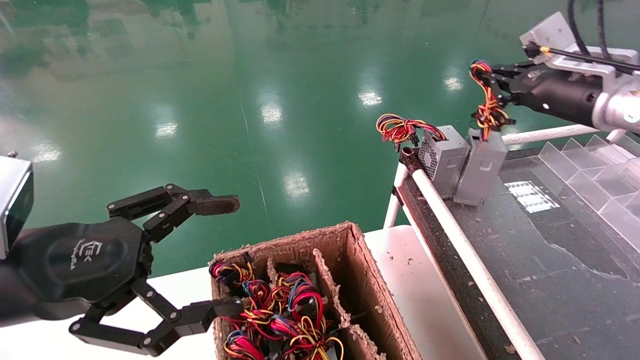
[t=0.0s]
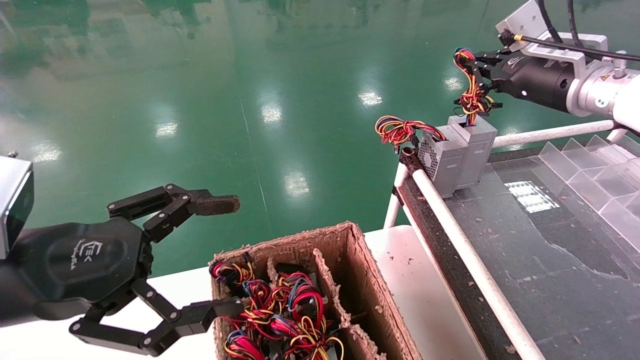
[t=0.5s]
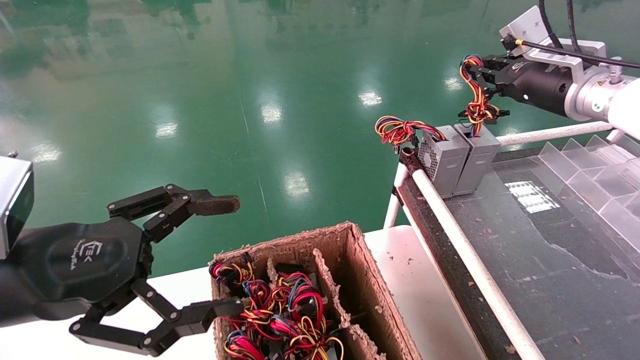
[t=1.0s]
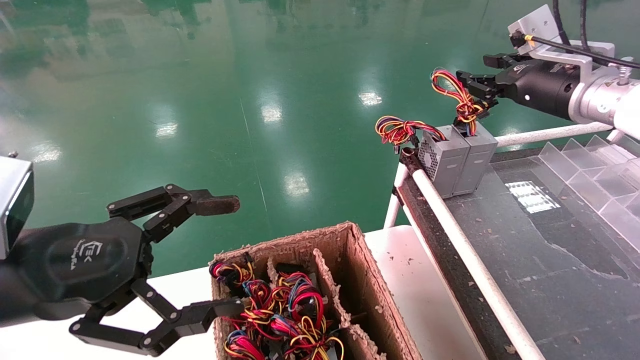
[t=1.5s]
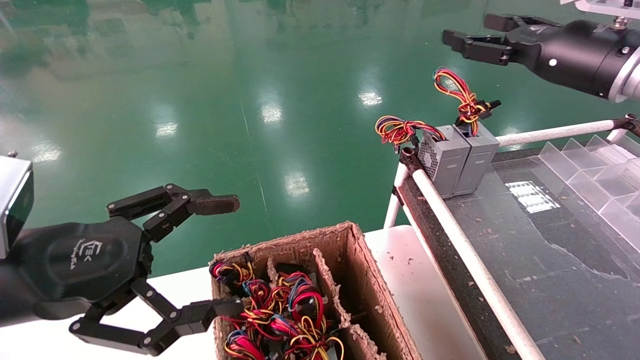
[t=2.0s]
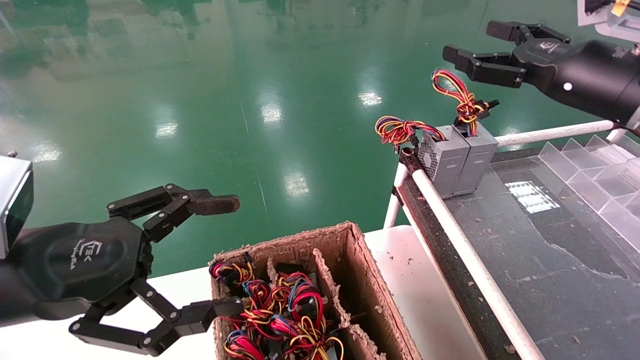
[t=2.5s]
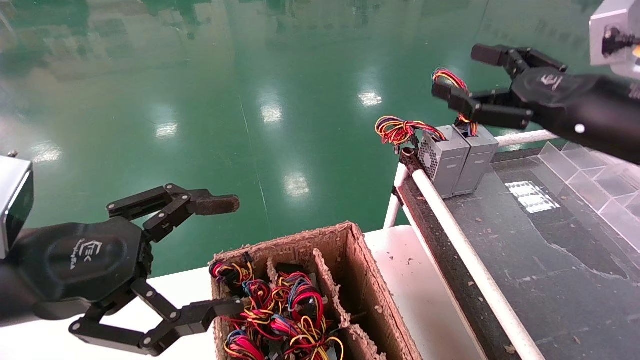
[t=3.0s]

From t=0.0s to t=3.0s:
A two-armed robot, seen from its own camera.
From t=0.0s to t=1.5s: There are only small adjustments of the grippers.
From t=1.5s to t=3.0s: The right gripper travels backward by some 10 cm, and opens up.
